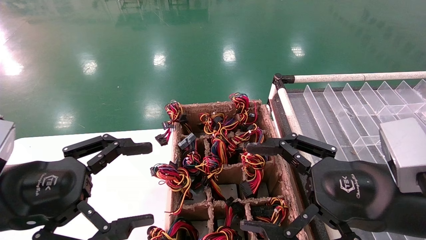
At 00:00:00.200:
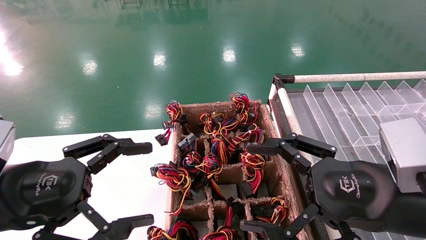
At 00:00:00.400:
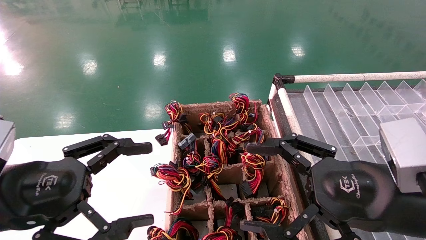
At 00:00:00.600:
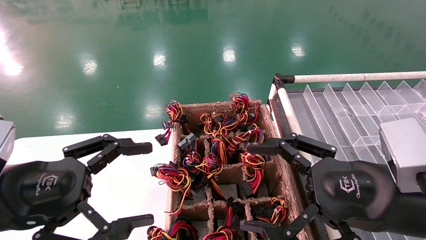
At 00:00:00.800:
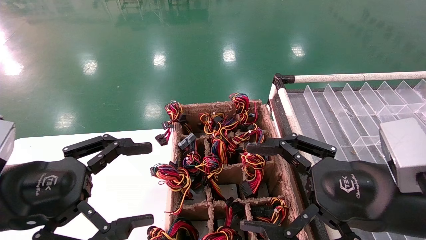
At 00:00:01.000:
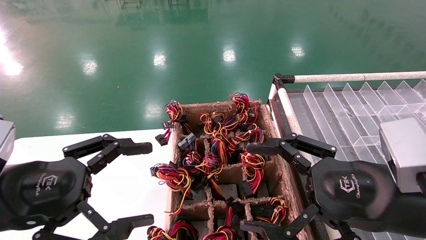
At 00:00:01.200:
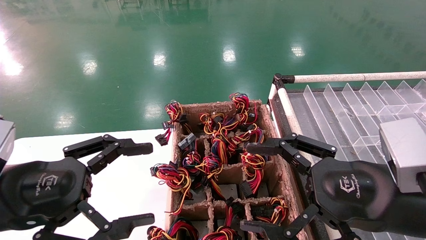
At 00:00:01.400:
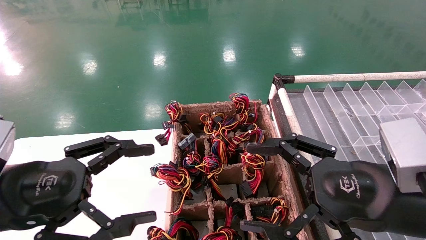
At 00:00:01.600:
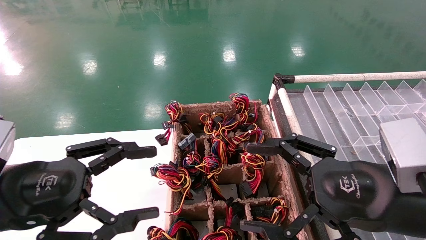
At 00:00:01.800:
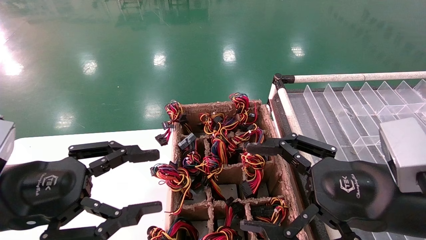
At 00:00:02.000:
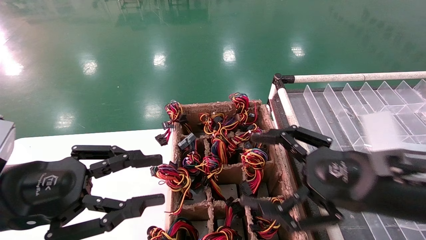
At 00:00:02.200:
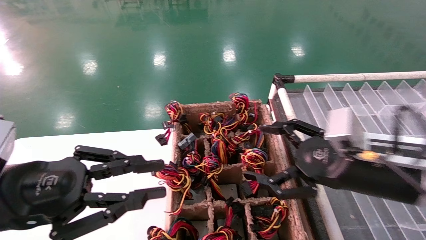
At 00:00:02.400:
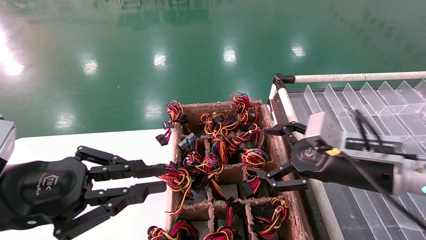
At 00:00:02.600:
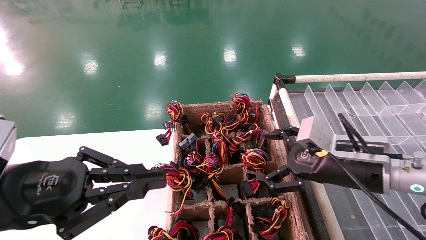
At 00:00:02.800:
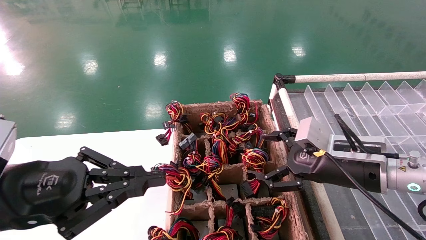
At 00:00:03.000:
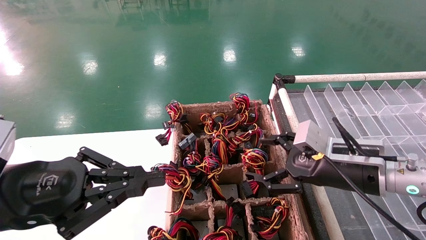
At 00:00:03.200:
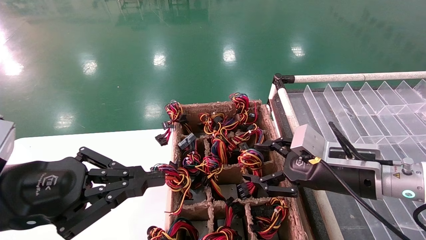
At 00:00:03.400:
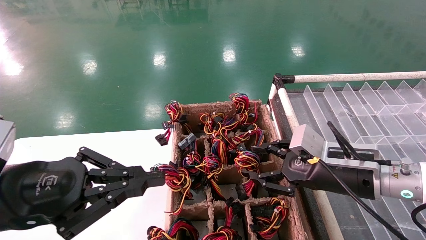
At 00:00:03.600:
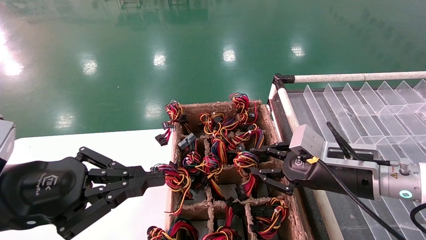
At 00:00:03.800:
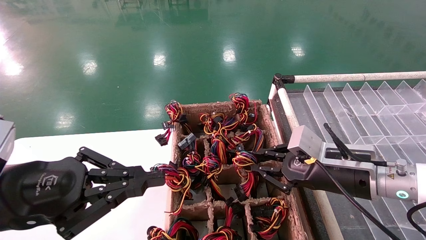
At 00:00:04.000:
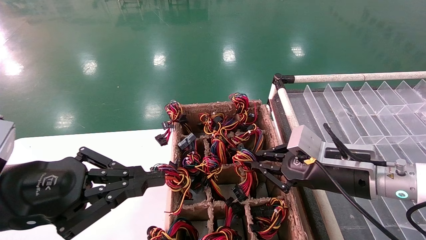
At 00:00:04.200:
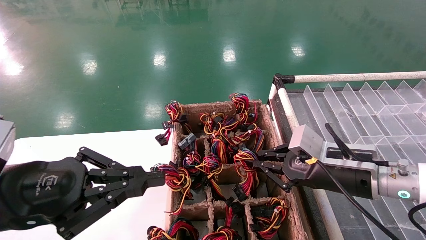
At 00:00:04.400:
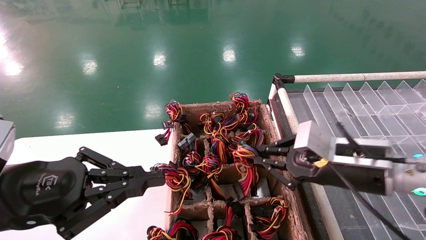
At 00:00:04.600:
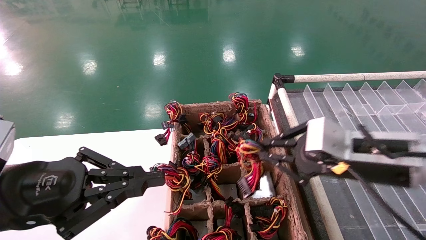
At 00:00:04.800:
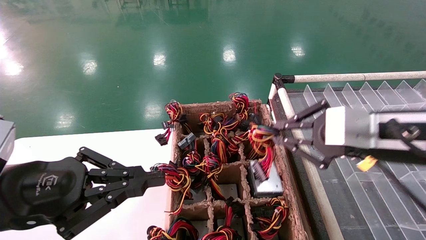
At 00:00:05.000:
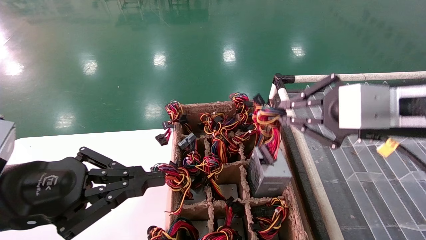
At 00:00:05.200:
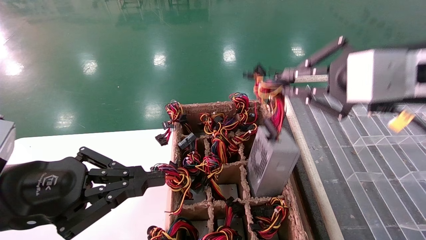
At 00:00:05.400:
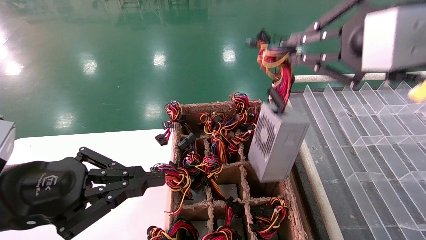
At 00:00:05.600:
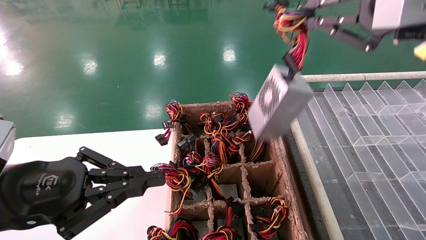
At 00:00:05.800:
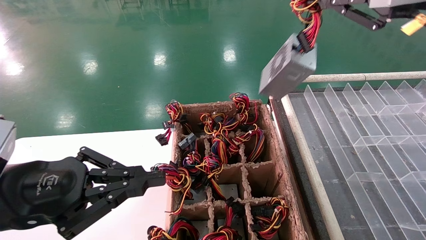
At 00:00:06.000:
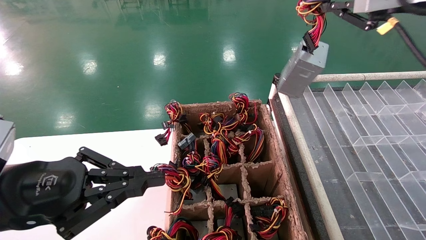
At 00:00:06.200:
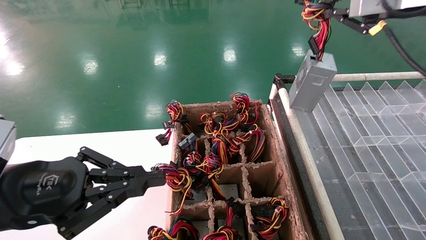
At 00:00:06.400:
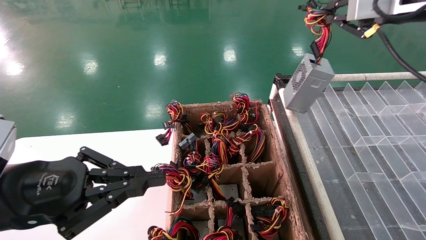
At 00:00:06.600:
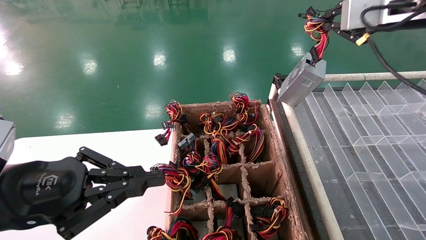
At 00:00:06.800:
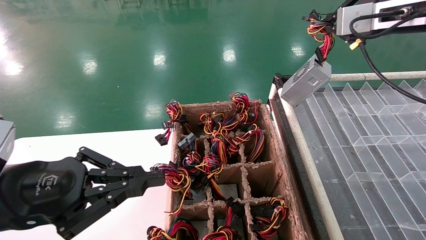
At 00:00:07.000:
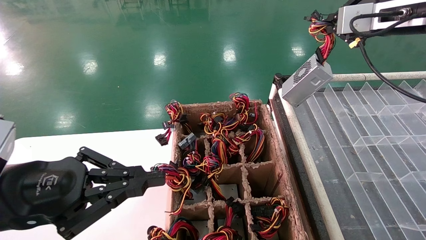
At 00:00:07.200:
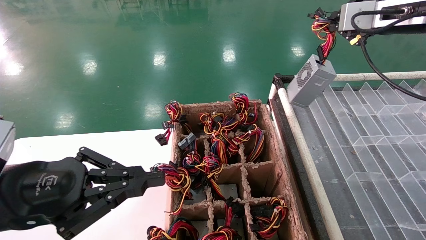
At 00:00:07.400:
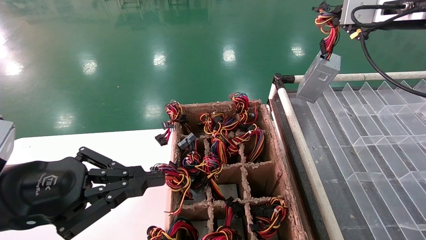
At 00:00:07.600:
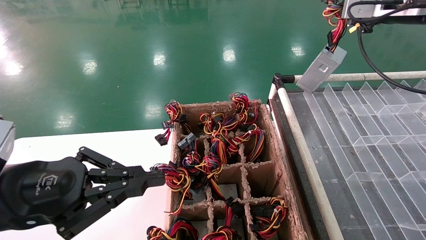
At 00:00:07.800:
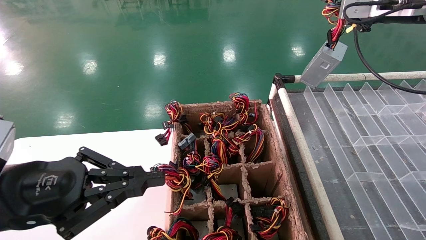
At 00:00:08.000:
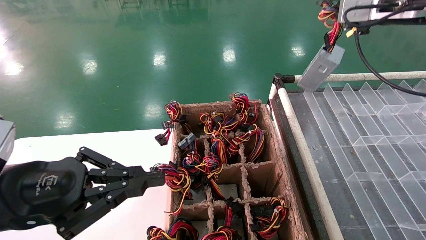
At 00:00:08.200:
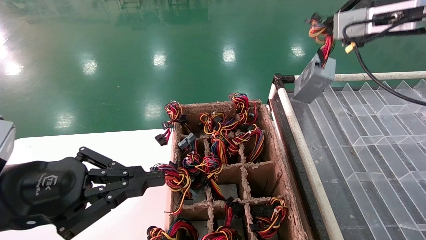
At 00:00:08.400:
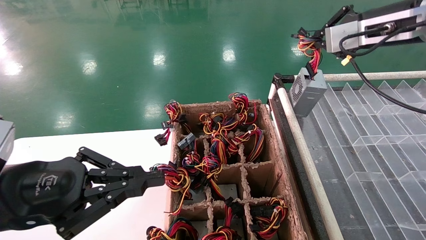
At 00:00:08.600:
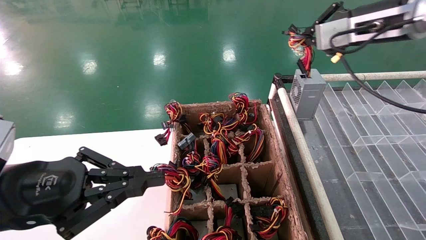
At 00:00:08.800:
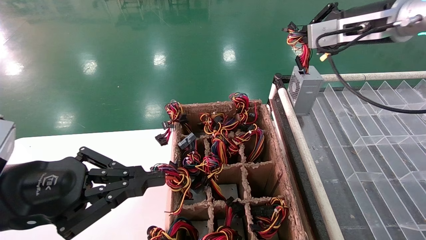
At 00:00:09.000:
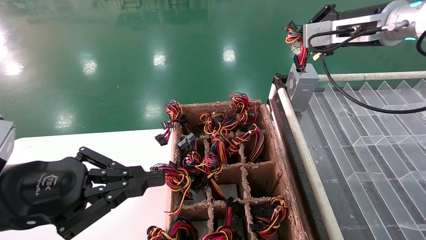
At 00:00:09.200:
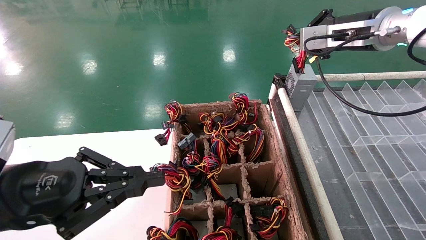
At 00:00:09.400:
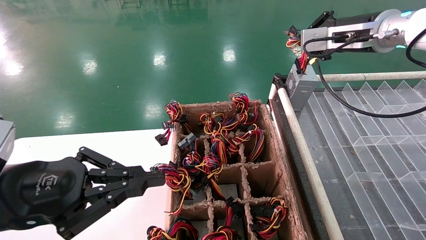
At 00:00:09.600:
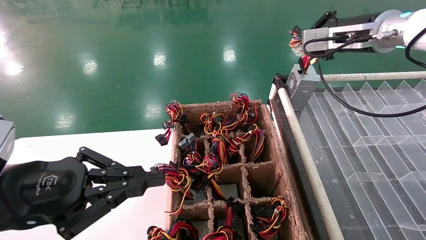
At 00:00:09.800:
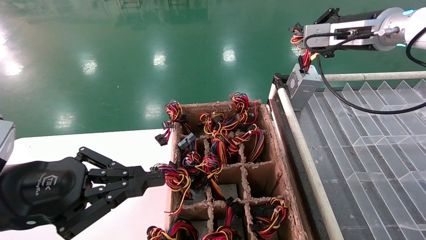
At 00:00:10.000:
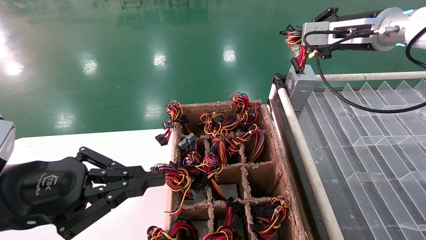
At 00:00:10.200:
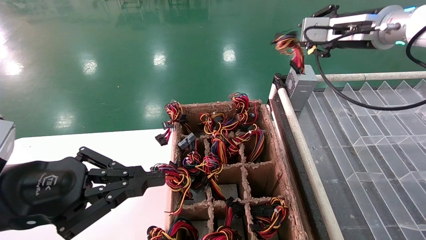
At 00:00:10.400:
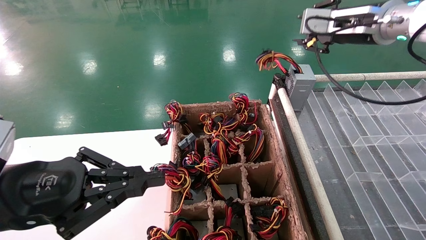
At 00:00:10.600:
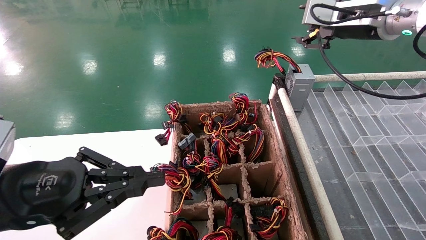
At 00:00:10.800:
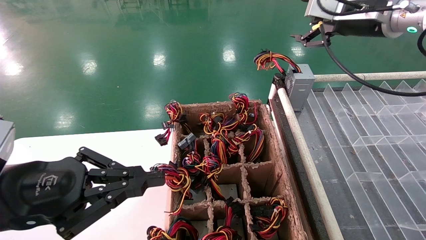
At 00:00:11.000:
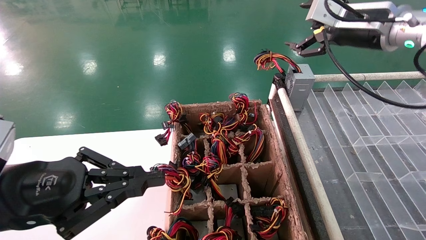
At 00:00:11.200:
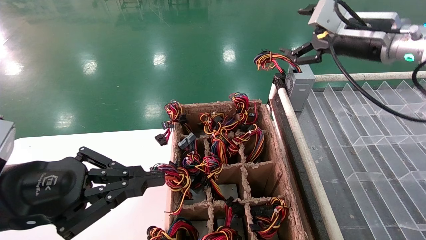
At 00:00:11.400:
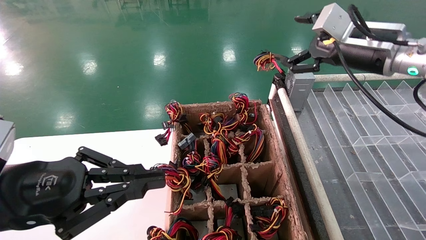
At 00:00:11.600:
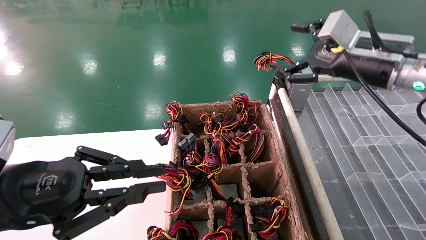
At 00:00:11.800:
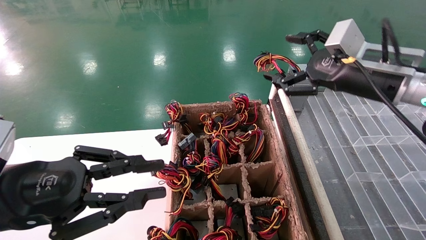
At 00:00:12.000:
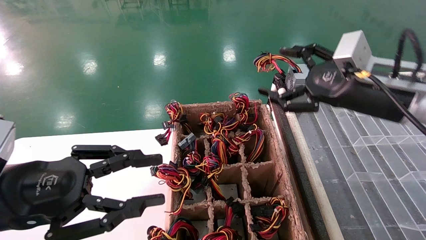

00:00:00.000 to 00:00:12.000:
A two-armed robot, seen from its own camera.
Step, 00:00:02.000 to 00:00:04.000: Grab the main unit power supply from the containment box.
Step, 00:00:04.200 to 00:00:10.600: Place the main unit power supply in the designated area.
00:00:00.000 to 00:00:01.600: Neither gripper changes place.
00:00:01.600 to 00:00:03.000: The right gripper moves forward, about 10 cm; the left gripper closes up.
00:00:03.000 to 00:00:04.400: The right gripper closes.
00:00:04.400 to 00:00:06.000: The right gripper travels upward by about 25 cm.
00:00:06.000 to 00:00:07.600: The right gripper shifts about 15 cm forward and to the right.
00:00:07.600 to 00:00:09.000: The right gripper is displaced to the left by some 5 cm.
00:00:09.000 to 00:00:10.400: The grippers make only small movements.
00:00:10.400 to 00:00:12.000: The right gripper travels downward and backward by some 15 cm, and opens its fingers.

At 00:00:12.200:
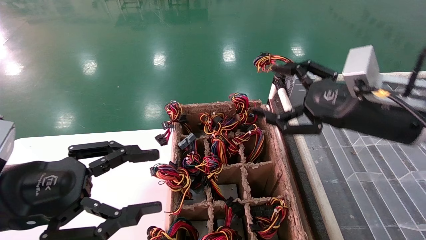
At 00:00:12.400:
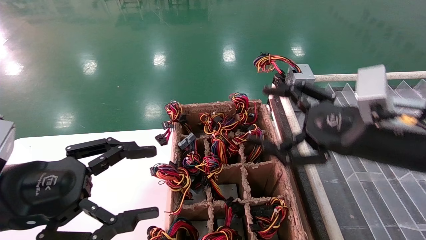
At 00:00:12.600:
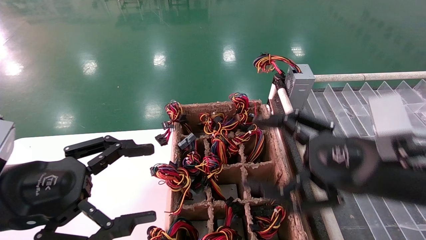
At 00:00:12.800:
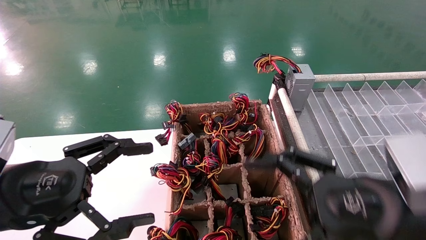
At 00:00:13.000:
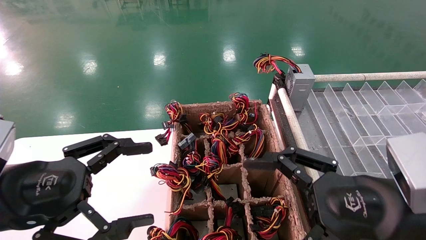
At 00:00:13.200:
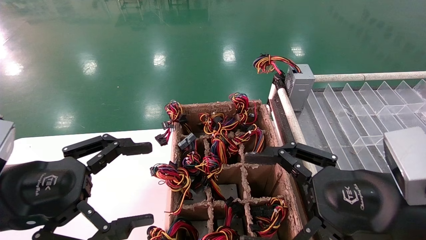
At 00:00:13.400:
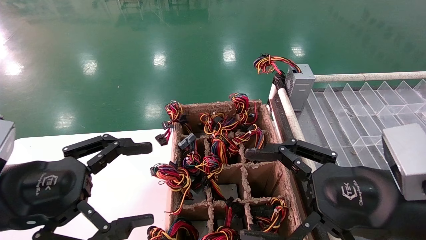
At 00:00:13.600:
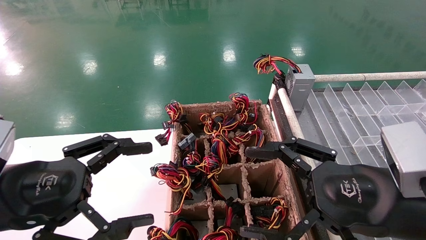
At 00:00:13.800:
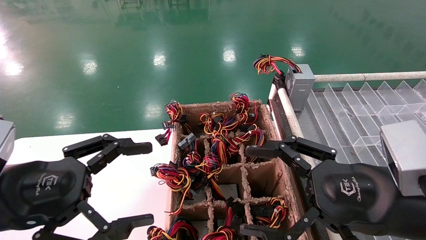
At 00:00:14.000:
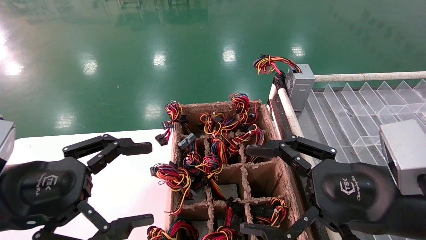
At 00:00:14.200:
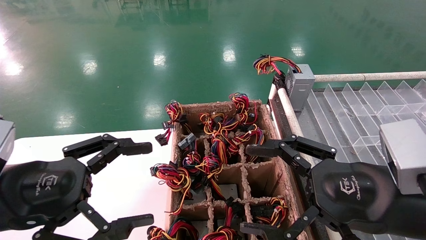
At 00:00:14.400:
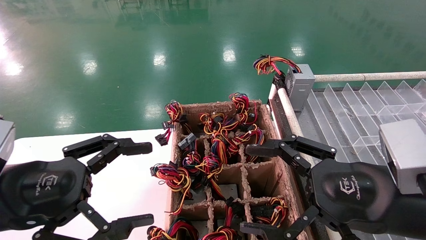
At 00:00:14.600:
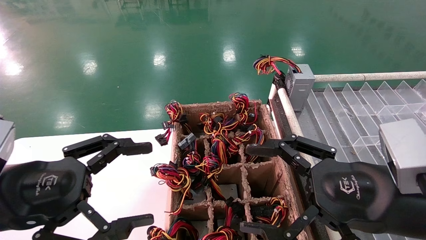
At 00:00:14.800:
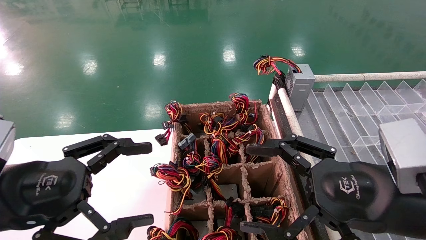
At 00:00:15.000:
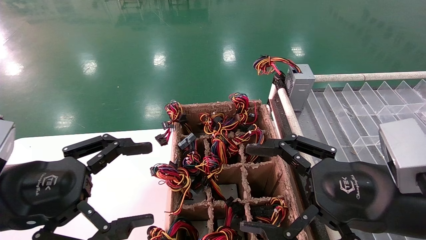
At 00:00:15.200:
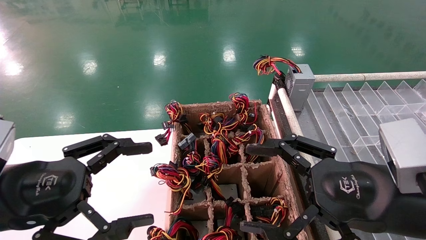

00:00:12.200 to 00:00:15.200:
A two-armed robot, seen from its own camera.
00:00:12.200 to 00:00:13.800: The right gripper travels backward and downward by roughly 10 cm; the left gripper opens its fingers.
00:00:13.800 to 00:00:15.200: Both grippers stay about where they are.
